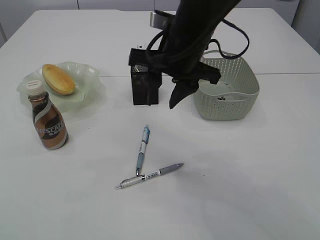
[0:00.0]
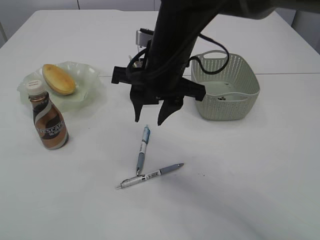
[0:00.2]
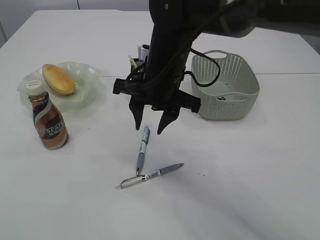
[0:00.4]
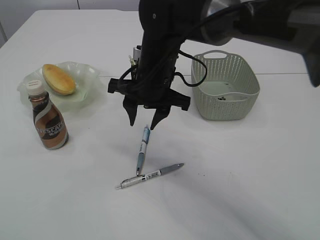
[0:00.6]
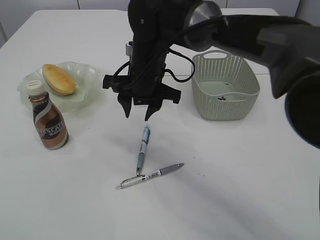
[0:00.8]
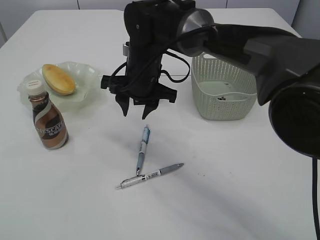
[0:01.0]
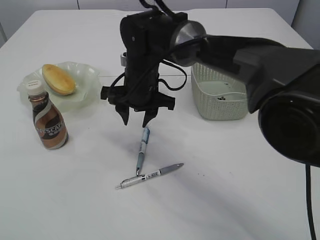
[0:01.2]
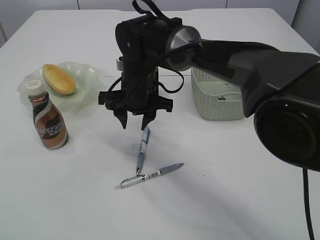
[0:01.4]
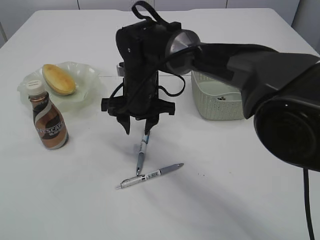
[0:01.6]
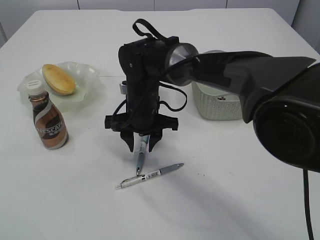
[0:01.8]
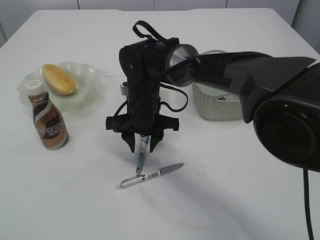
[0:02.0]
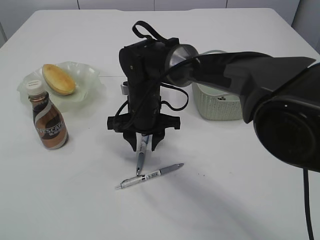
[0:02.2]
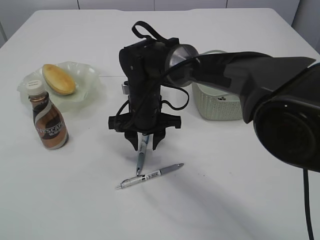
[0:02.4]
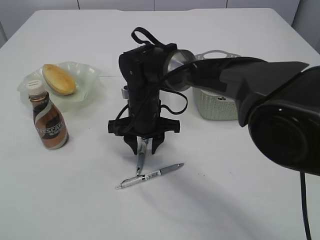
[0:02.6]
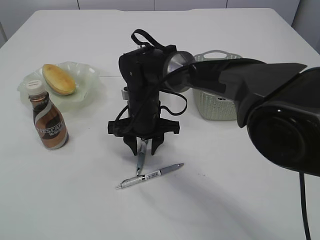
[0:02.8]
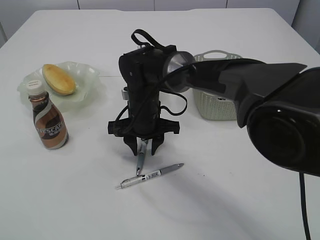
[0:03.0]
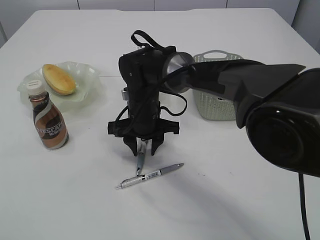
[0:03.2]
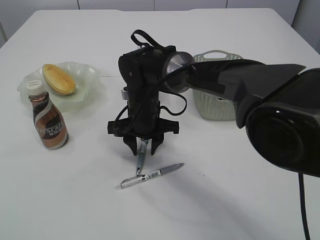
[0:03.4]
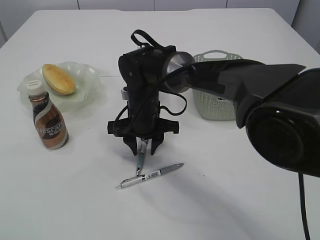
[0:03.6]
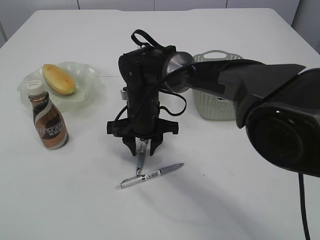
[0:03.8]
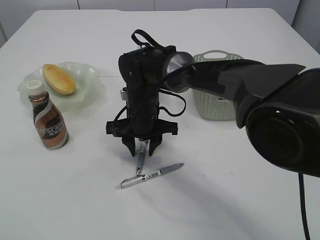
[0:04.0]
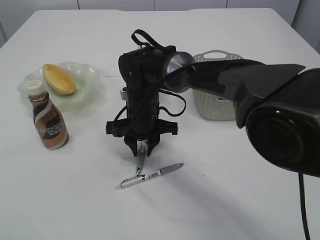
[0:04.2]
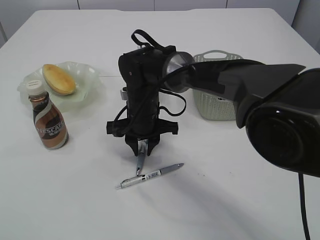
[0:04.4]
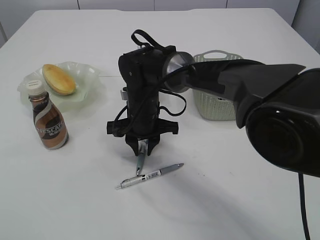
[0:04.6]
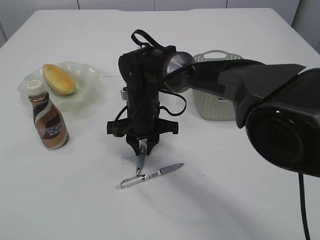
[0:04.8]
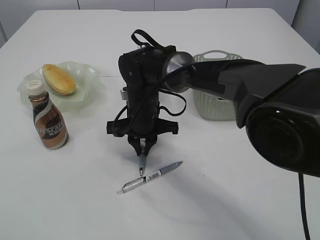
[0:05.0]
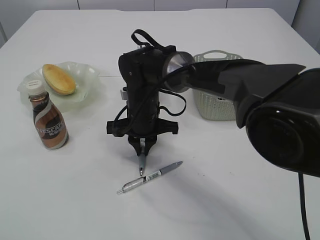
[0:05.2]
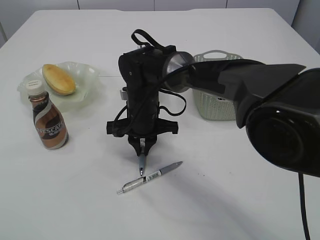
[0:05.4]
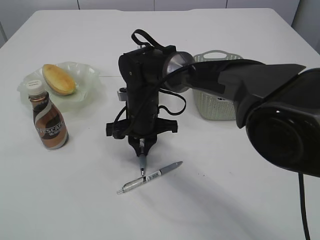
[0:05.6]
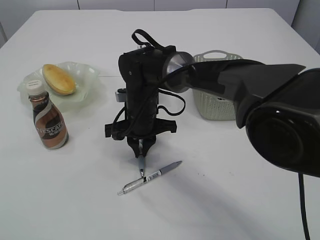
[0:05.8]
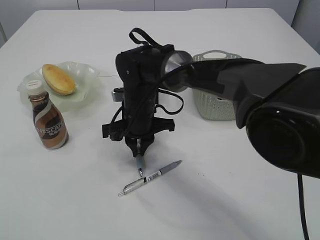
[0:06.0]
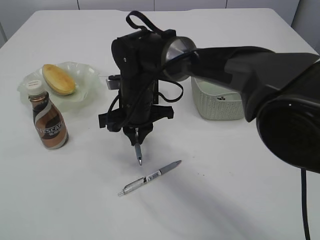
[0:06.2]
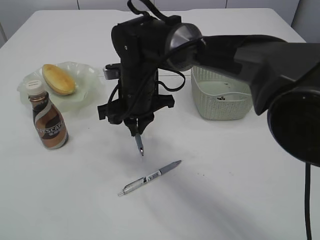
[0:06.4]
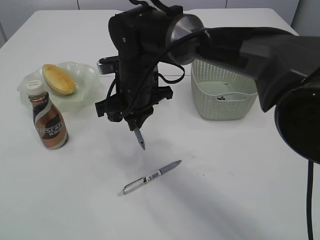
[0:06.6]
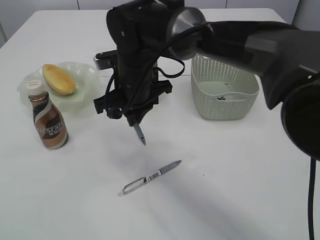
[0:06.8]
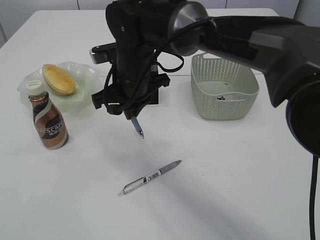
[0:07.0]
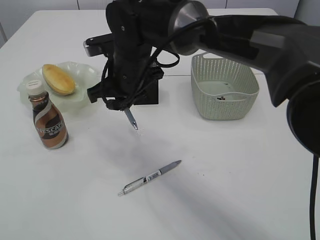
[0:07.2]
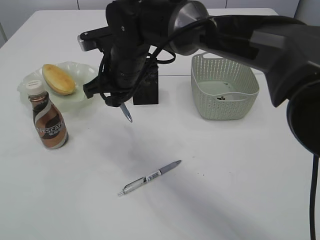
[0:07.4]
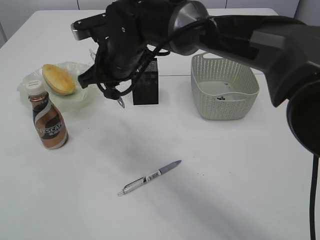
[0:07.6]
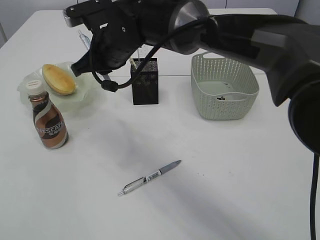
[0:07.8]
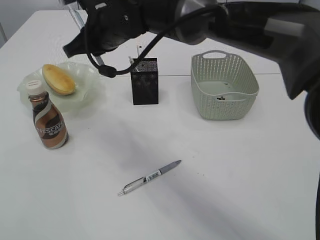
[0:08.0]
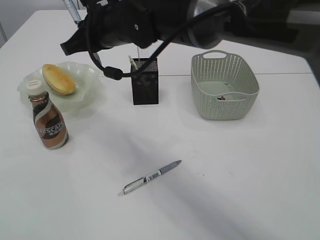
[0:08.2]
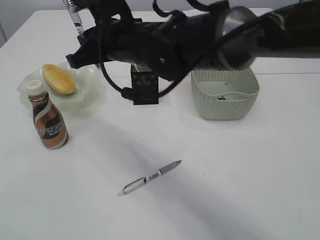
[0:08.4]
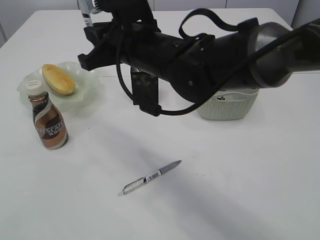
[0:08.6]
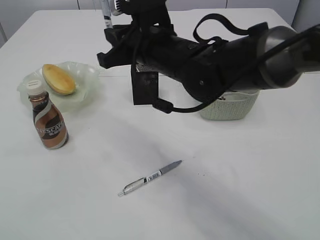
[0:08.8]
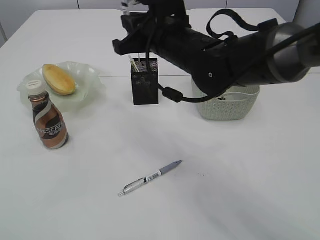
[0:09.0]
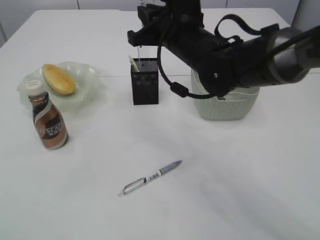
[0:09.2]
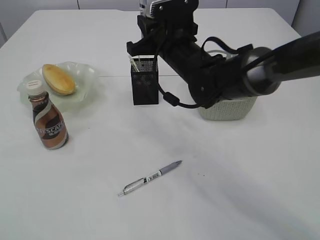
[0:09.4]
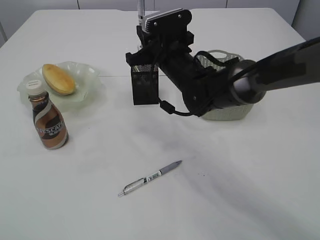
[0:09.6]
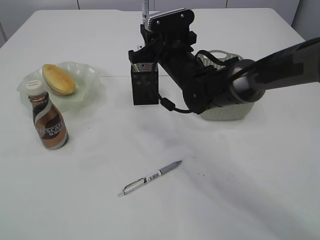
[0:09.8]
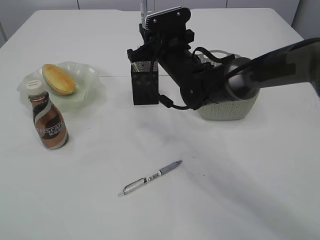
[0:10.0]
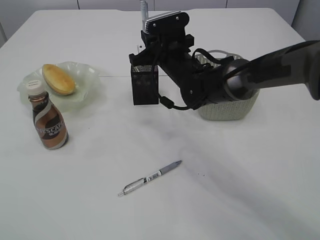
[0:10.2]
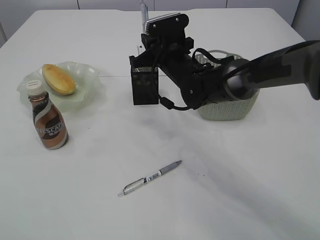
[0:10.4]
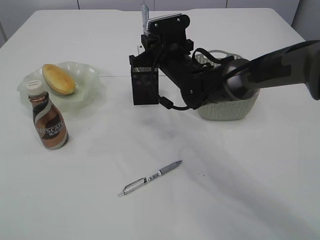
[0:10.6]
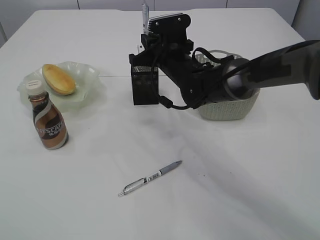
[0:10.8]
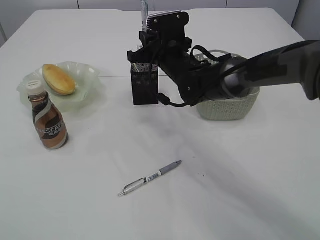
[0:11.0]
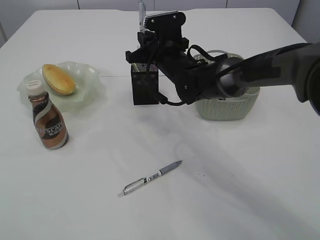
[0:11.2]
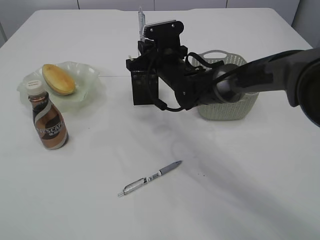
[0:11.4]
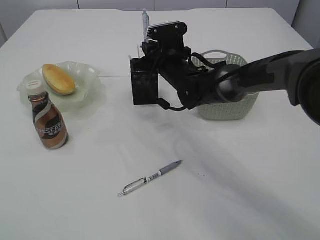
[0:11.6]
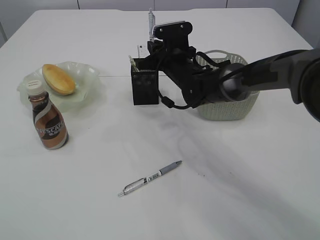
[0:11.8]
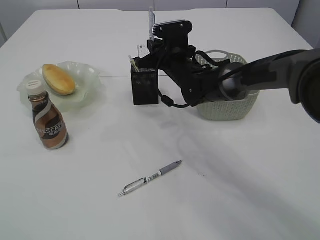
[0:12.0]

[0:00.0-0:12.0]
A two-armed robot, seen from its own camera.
Step, 0:00.0 to 0:06.4: Pick up the pen with right arm.
0:00.0 to 0:01.6: The right gripper travels downward, to the left and forward by approximately 15 cm.
0:01.6 to 0:03.0: The grippers make only small movements.
0:03.0 to 0:04.4: Both grippers stay about where they are.
0:04.4 to 0:06.0: The grippers move only a little.
0:06.0 to 0:07.6: The right gripper moves upward, roughly 10 cm.
0:07.6 to 0:09.0: The right gripper heads to the right, covering approximately 10 cm.
0:09.0 to 0:10.4: The right gripper heads forward and downward, covering about 10 cm.
0:10.4 to 0:12.0: The grippers move only a little.

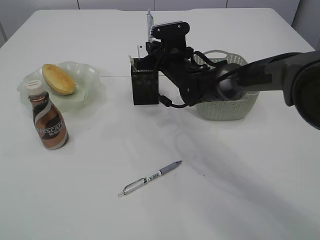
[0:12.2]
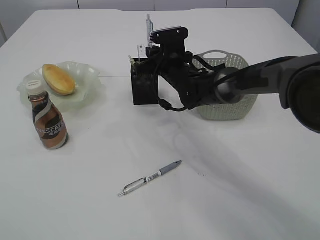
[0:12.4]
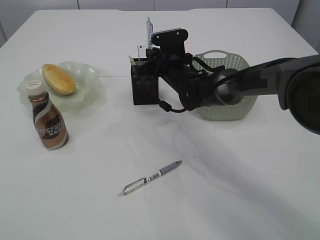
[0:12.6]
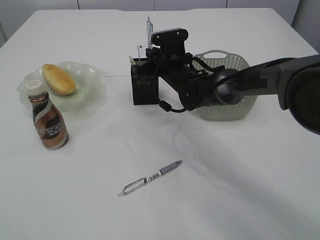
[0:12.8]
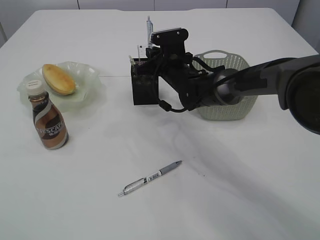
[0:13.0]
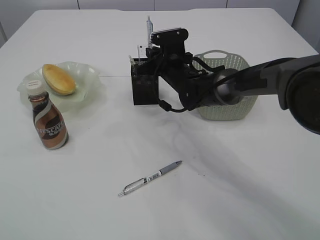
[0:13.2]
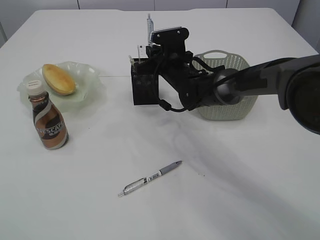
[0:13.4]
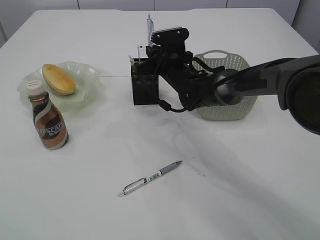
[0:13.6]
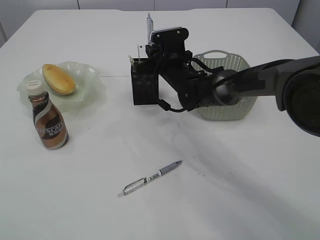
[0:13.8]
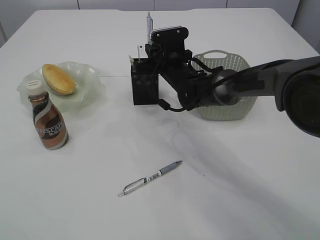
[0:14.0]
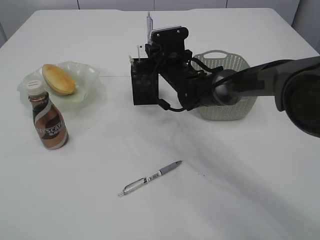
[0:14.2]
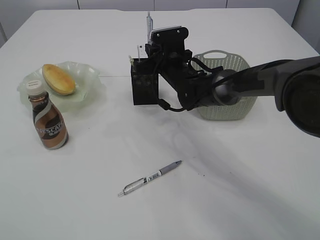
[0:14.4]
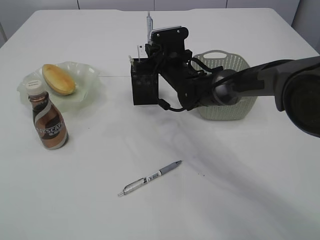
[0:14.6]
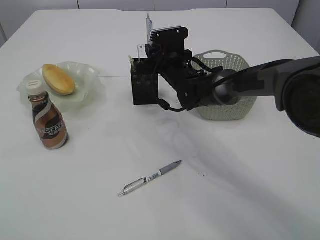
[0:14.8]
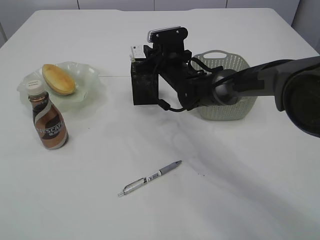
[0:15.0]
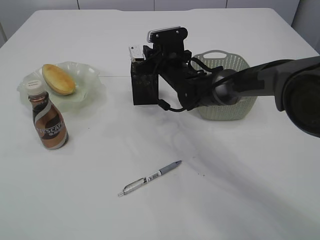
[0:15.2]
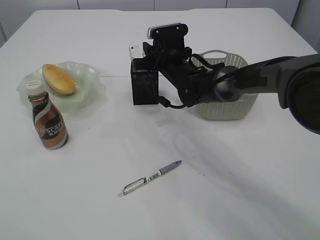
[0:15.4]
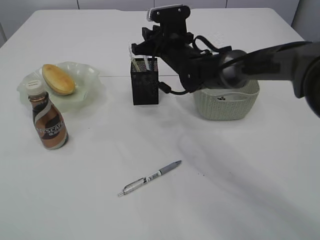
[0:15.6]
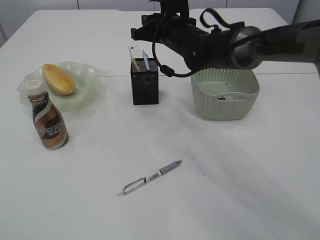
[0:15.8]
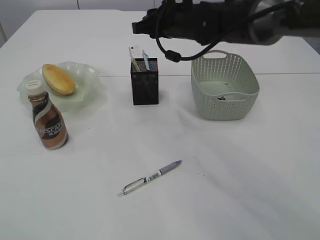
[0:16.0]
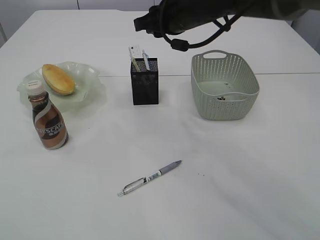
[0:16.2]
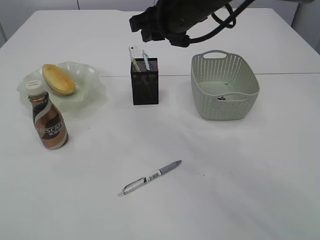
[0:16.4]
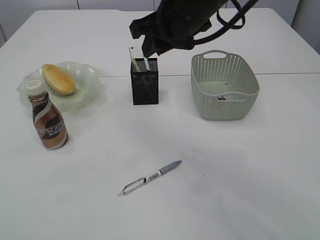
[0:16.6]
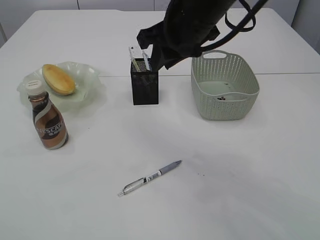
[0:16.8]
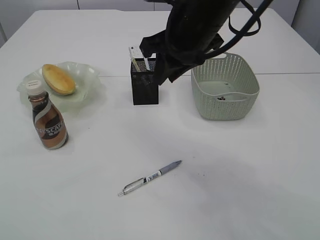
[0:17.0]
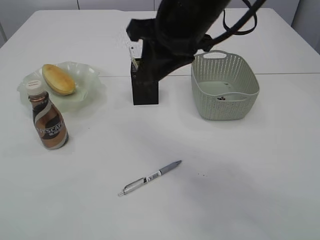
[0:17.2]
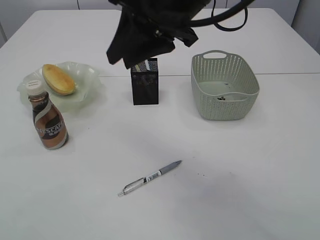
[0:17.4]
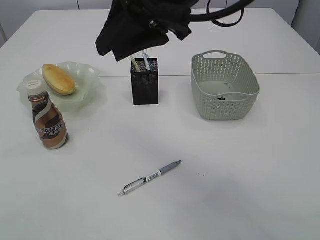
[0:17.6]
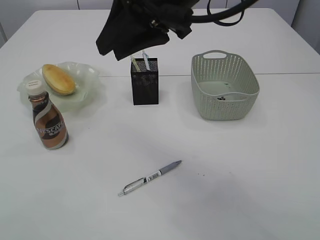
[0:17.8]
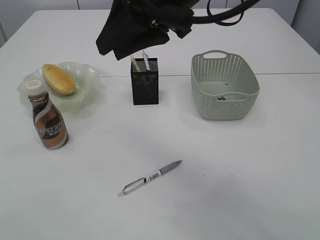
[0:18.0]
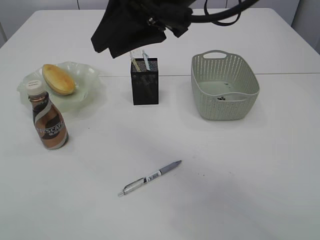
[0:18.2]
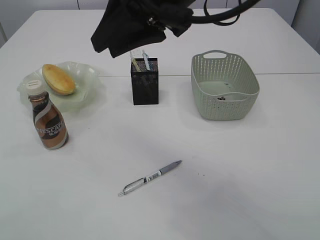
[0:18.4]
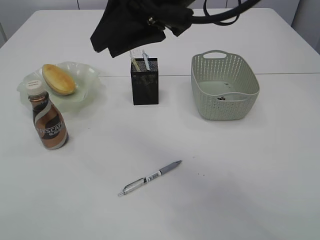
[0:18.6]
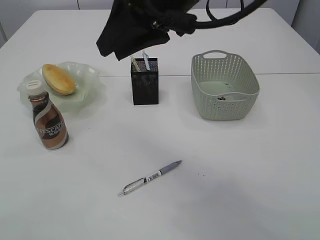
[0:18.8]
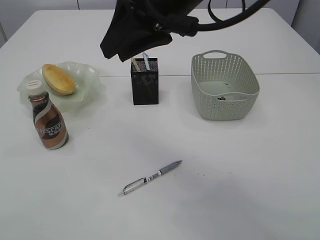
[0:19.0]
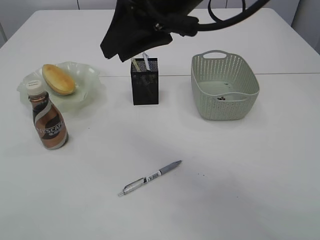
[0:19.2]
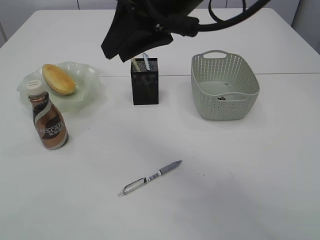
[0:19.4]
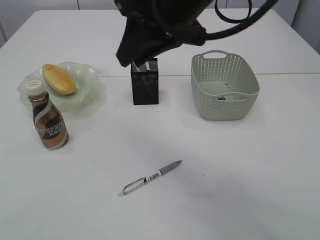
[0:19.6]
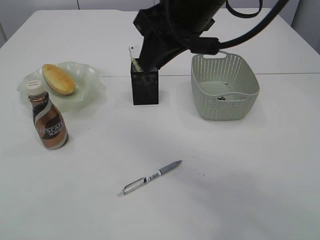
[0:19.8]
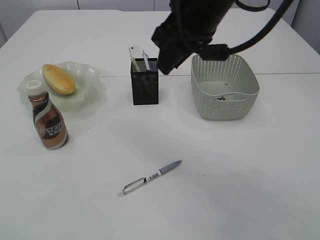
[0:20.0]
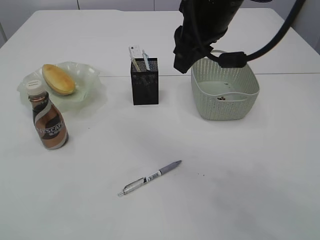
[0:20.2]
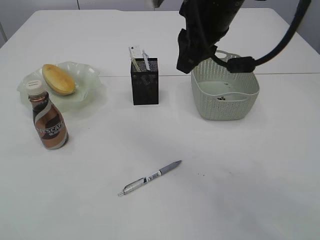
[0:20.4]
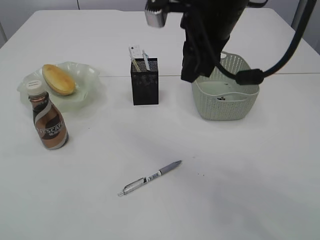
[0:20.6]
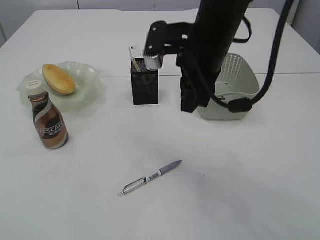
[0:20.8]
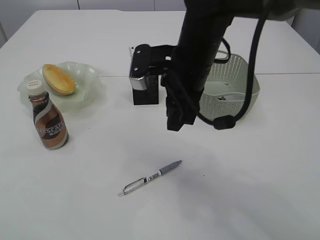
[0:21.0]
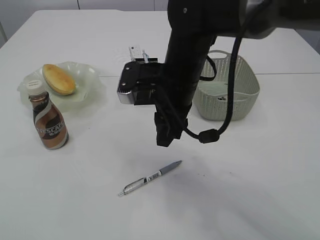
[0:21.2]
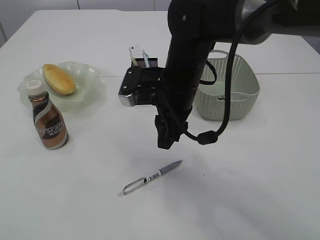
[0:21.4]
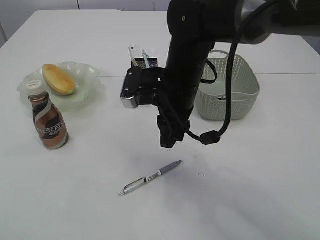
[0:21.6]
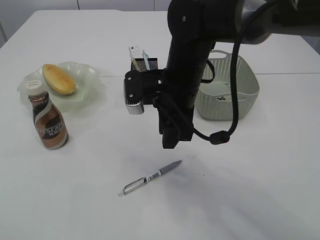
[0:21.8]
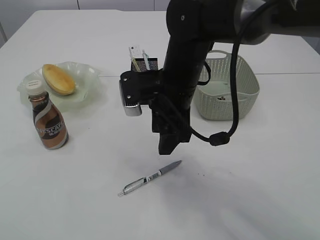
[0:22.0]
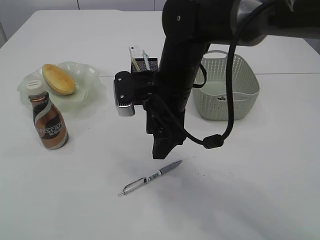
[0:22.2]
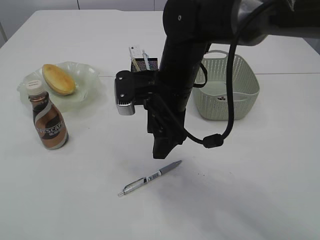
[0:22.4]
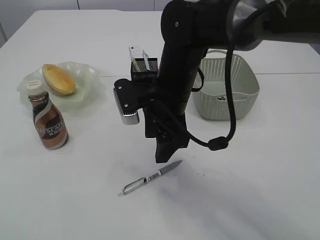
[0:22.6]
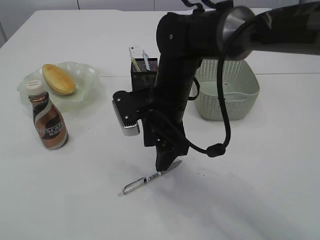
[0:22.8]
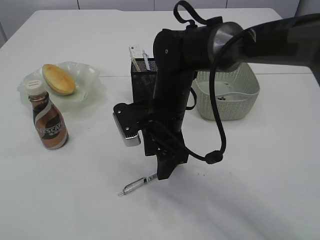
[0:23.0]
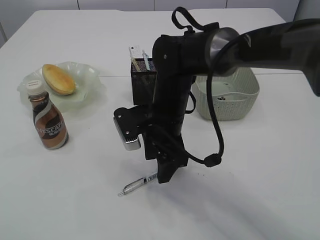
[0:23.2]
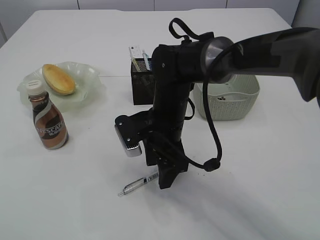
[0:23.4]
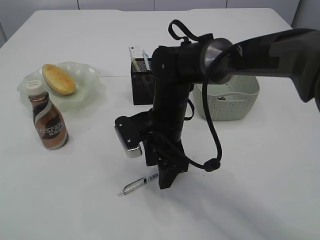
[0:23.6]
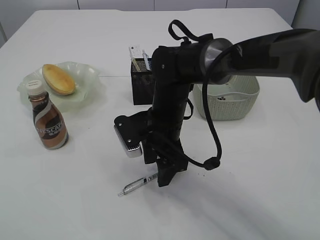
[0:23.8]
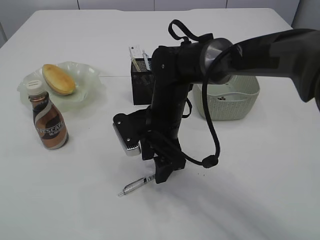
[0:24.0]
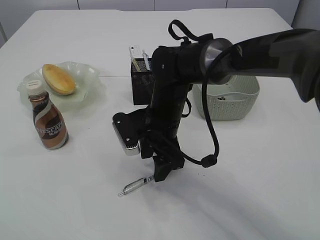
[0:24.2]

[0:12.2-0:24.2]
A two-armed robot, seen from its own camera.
Step, 0:12.2 to 0:15.8: Place the pen into the pen holder.
0:12.2 to 0:15.2: Both grippers stay put.
0:15.2 to 0:16.6: The right gripper is displaced upward and backward by approximately 20 cm.
0:16.6 to 0:18.2: The right gripper moves backward and upward, roughly 10 cm.
0:19.8 to 0:21.2: The right gripper shifts approximately 15 cm downward.
0:21.2 to 0:22.6: The right gripper opens its fingers.
0:22.6 to 0:24.2: The right gripper moves downward, roughly 5 cm.
